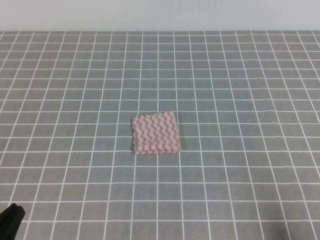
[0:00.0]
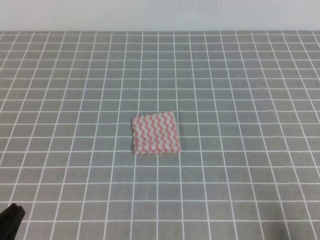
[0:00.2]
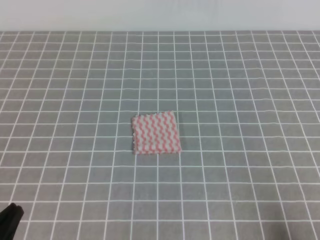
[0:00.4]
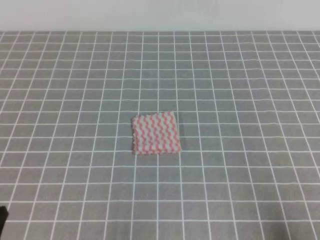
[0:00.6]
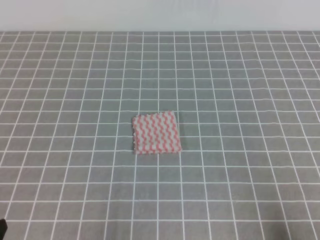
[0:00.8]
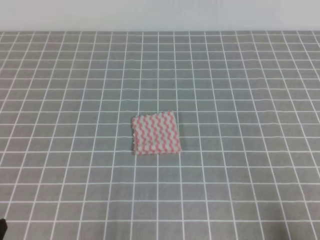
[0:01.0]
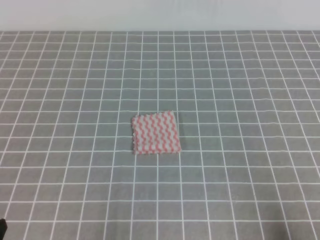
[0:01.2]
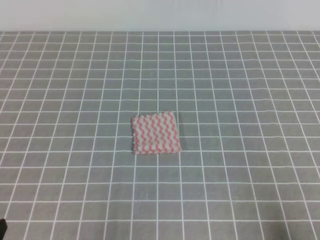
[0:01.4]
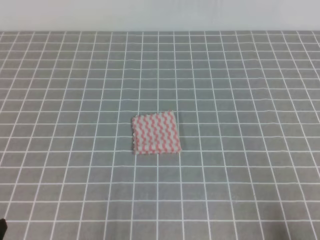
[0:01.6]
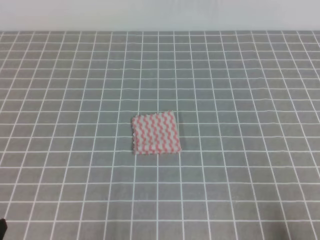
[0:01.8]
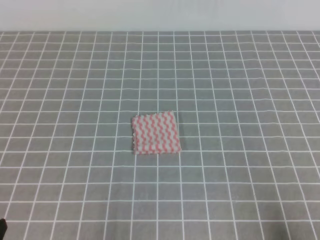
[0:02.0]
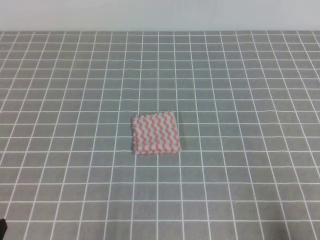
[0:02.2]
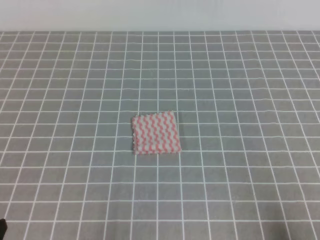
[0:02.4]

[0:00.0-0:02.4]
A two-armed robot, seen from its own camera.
0:01.2 to 0:02.4: Both grippers stay about where they are.

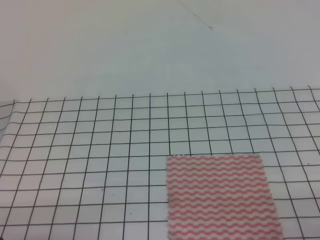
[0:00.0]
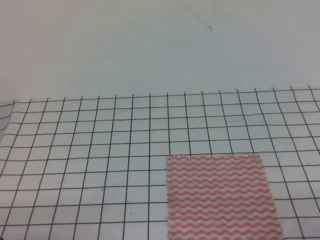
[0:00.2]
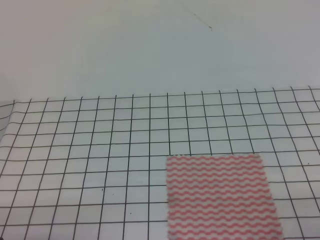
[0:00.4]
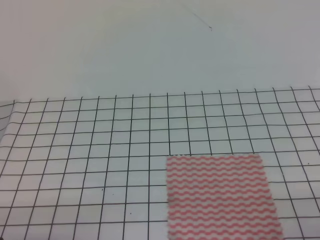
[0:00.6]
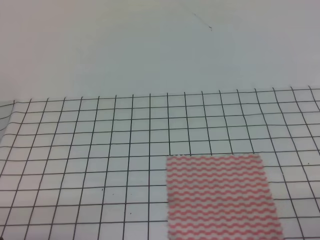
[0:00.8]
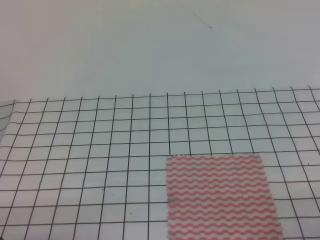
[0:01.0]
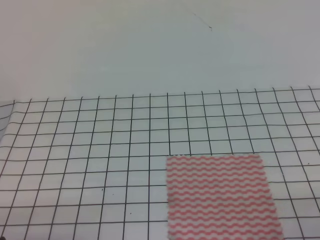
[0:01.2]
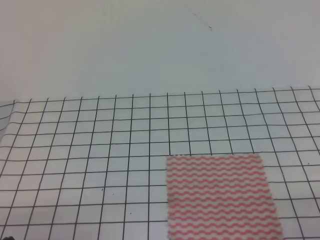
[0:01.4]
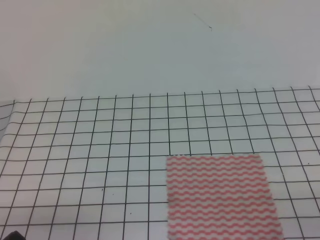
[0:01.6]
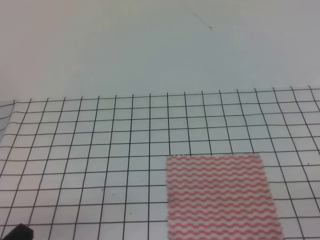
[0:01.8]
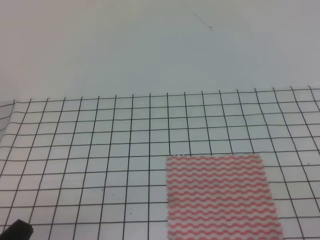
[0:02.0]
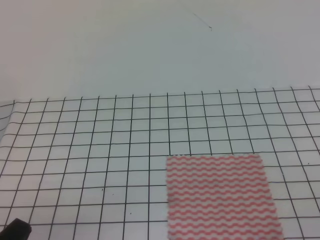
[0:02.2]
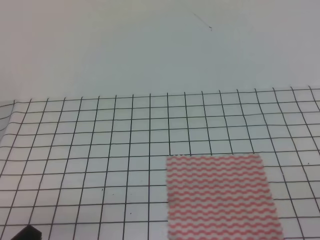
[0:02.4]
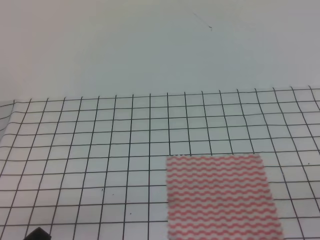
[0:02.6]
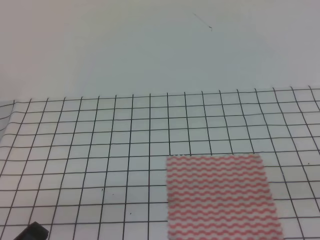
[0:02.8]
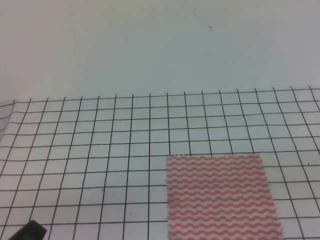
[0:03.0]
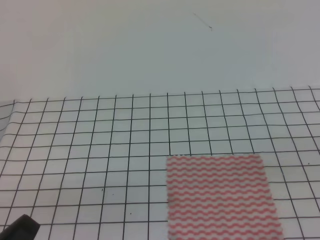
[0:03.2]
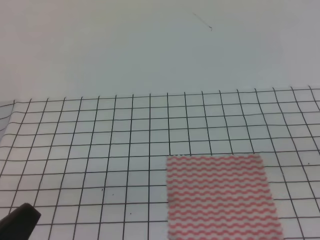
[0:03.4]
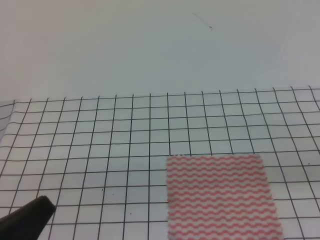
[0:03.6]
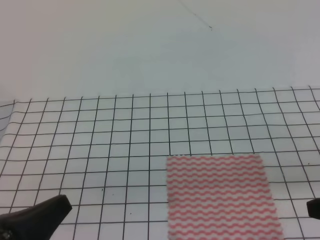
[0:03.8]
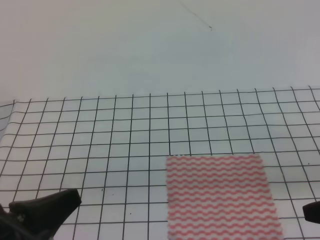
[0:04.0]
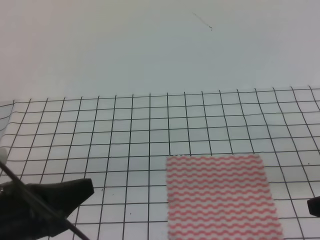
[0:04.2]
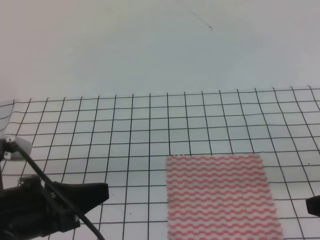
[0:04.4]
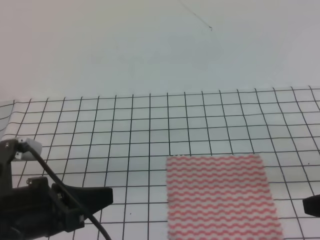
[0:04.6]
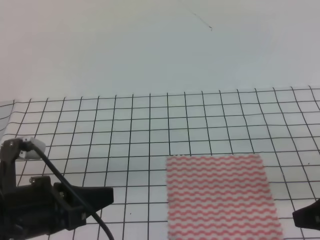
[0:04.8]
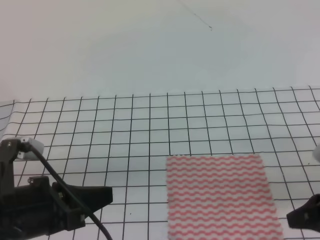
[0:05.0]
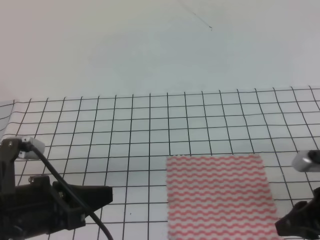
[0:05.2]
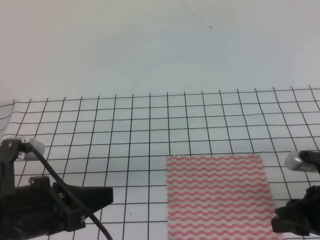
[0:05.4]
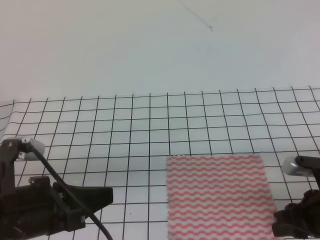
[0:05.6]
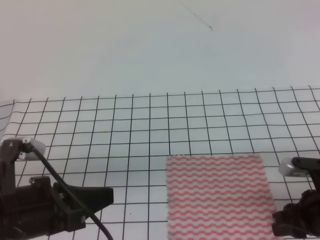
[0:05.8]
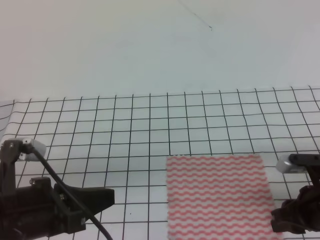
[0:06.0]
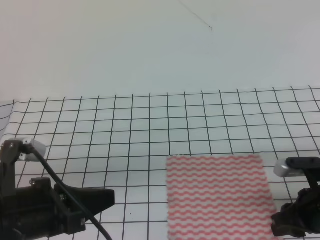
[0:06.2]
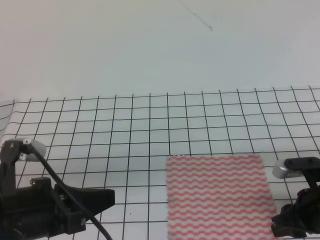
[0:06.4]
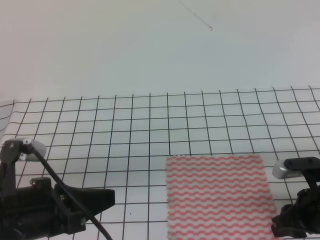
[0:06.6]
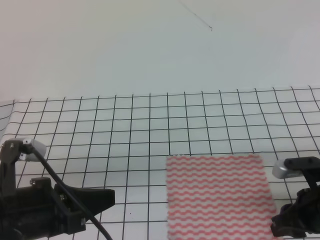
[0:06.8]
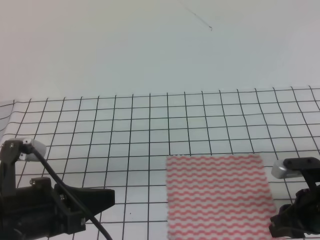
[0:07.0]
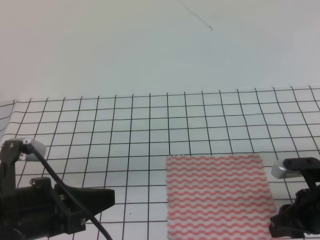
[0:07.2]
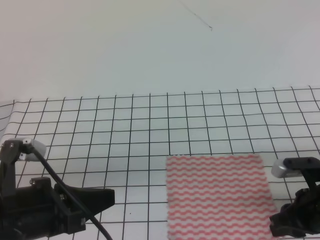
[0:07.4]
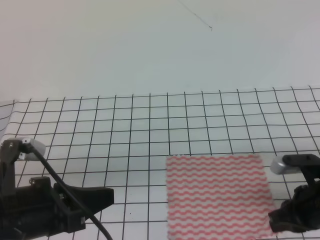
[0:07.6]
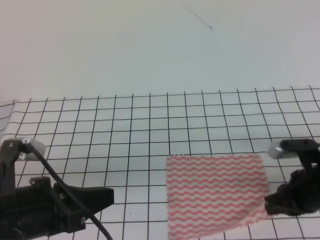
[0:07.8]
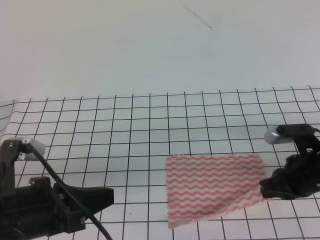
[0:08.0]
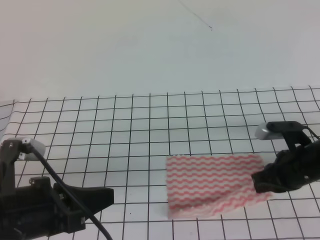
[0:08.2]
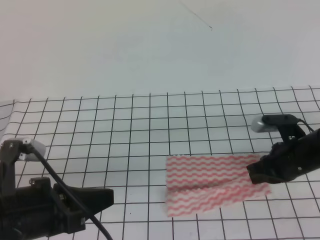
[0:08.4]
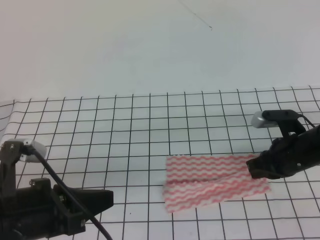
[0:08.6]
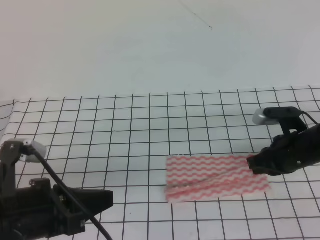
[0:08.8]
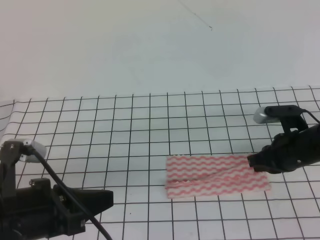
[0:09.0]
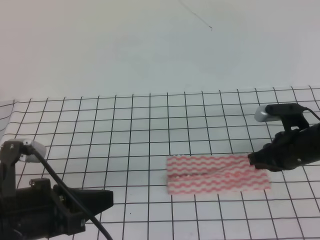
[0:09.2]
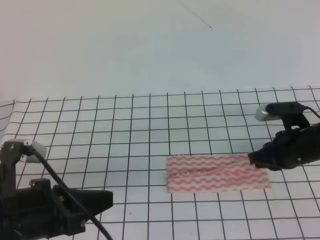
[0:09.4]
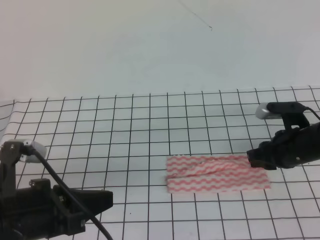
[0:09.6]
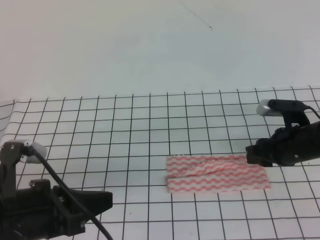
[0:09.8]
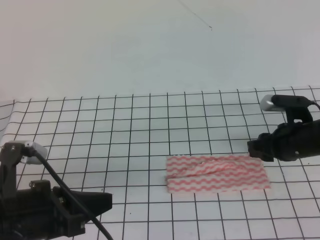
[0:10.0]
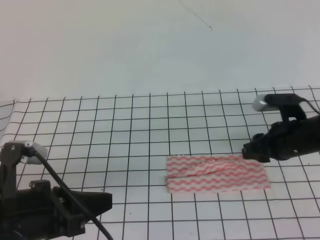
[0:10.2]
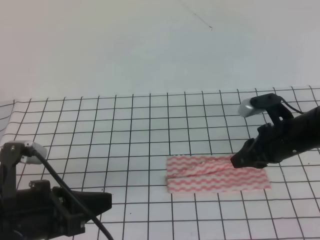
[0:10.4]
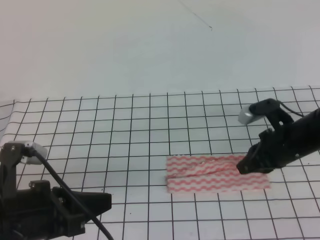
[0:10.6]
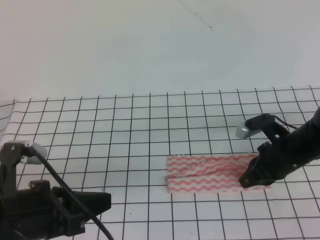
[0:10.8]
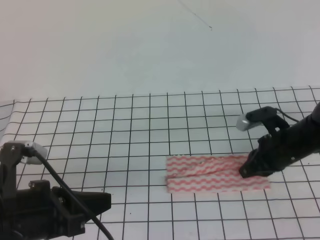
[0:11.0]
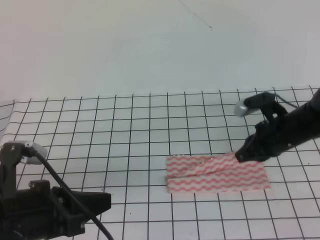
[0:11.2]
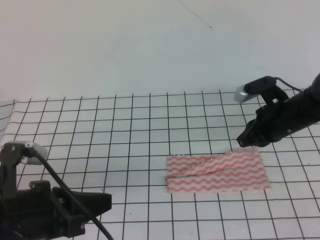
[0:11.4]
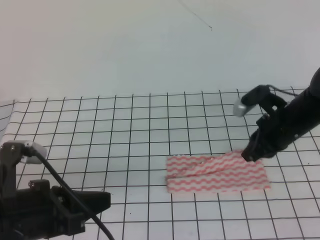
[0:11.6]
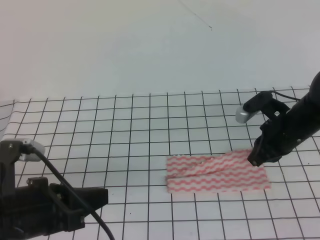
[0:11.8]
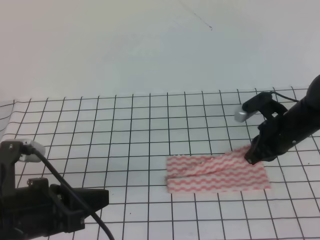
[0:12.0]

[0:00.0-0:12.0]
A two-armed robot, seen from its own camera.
Step, 0:00.0 to 0:09.4: Fold the towel upwards with the right gripper.
0:03.0 to 0:04.4: The left gripper goes roughly 10 cm forward and upward.
0:04.4 to 0:06.0: The right gripper shifts about 10 cm downward and forward, and opens.
0:06.0 to 0:07.6: The right gripper closes.
0:07.6 to 0:09.0: The right gripper shifts roughly 10 cm forward.
0:09.0 to 0:10.4: The right gripper opens.
0:10.4 to 0:12.0: The right gripper closes up.

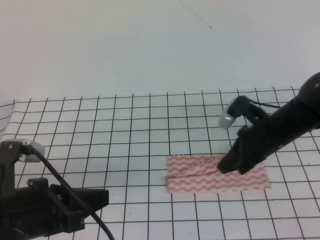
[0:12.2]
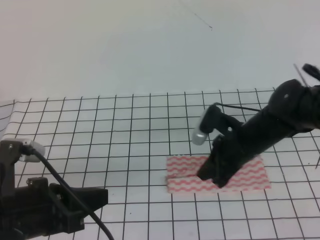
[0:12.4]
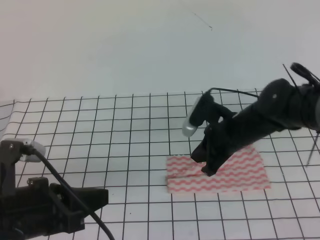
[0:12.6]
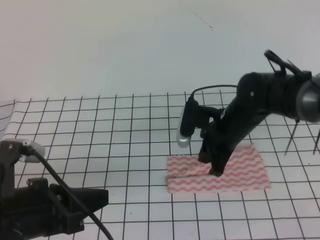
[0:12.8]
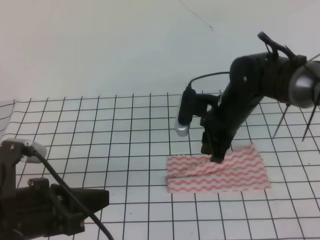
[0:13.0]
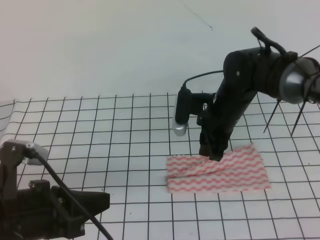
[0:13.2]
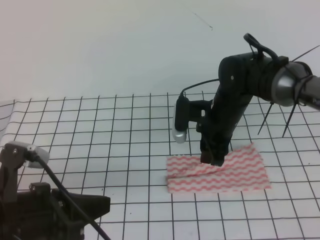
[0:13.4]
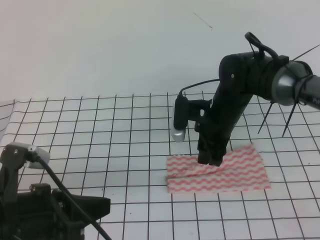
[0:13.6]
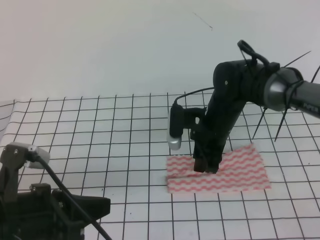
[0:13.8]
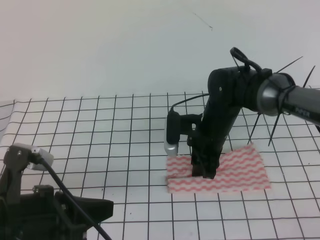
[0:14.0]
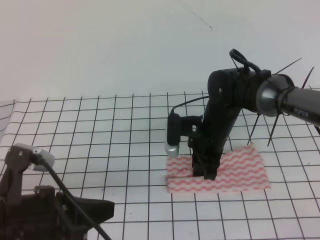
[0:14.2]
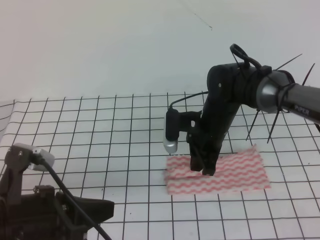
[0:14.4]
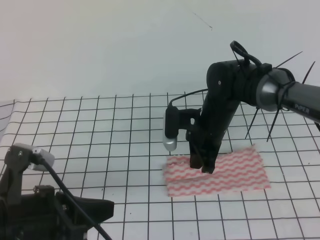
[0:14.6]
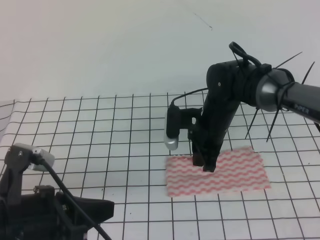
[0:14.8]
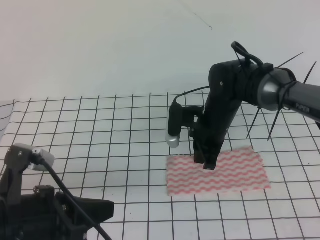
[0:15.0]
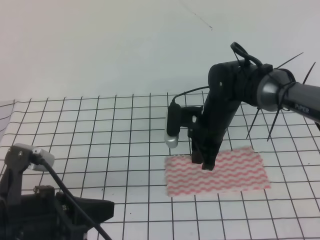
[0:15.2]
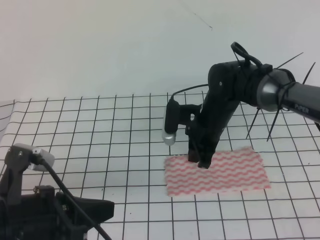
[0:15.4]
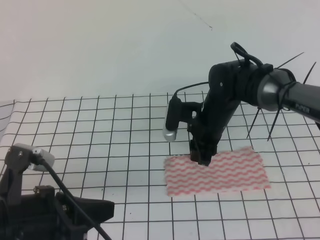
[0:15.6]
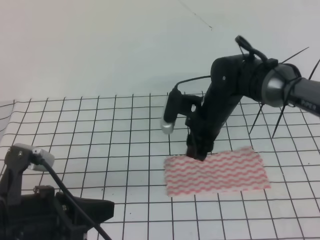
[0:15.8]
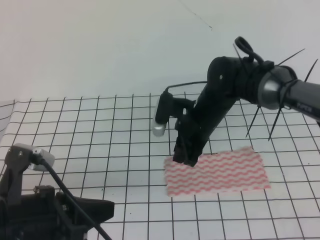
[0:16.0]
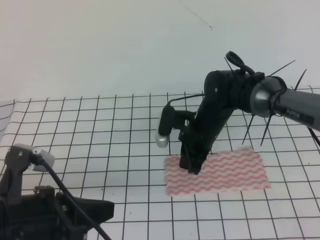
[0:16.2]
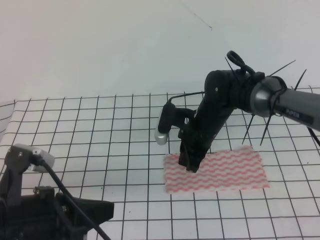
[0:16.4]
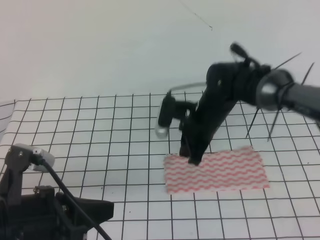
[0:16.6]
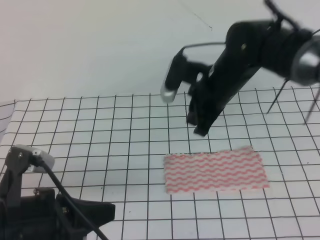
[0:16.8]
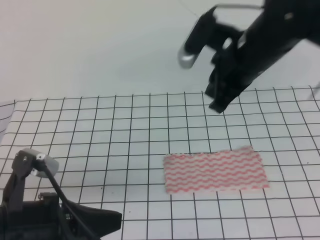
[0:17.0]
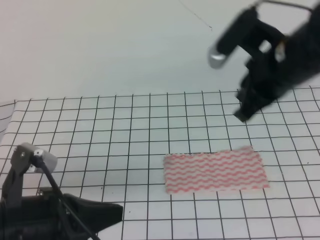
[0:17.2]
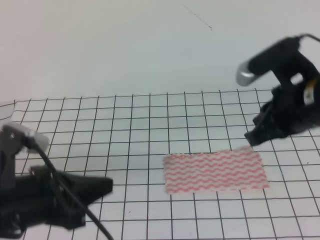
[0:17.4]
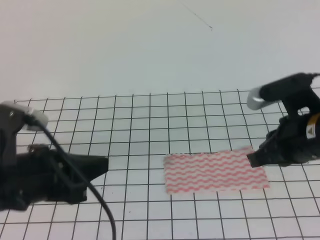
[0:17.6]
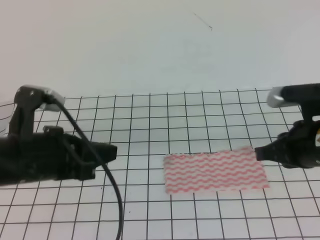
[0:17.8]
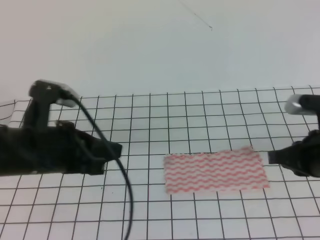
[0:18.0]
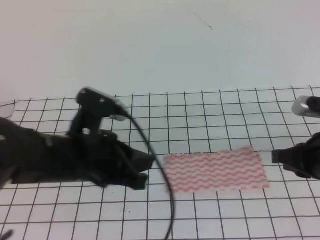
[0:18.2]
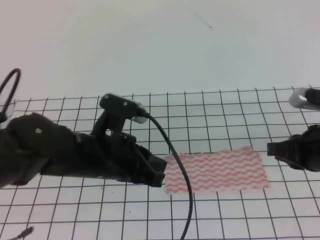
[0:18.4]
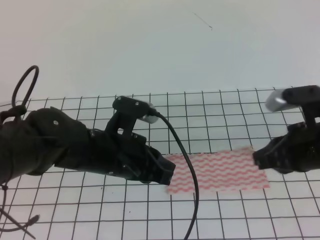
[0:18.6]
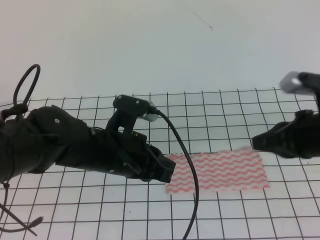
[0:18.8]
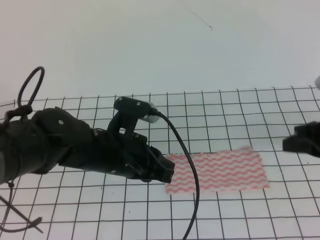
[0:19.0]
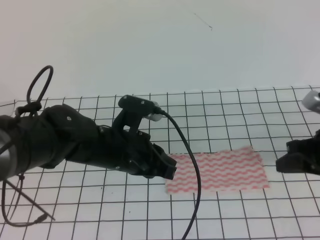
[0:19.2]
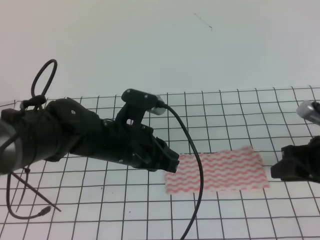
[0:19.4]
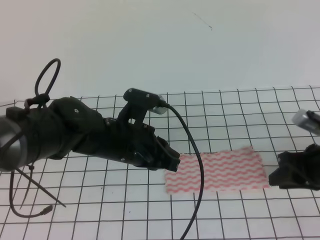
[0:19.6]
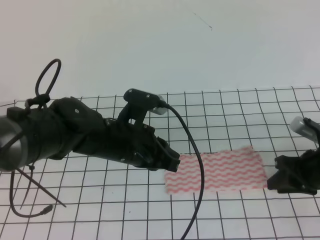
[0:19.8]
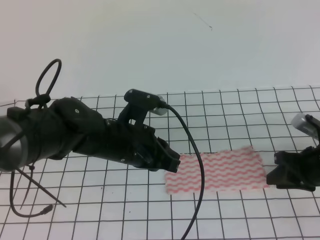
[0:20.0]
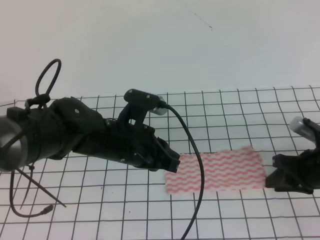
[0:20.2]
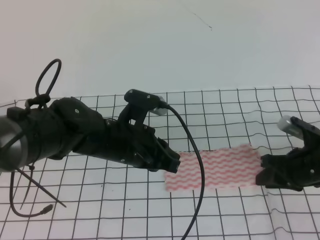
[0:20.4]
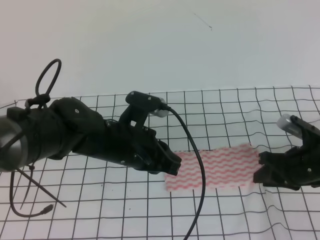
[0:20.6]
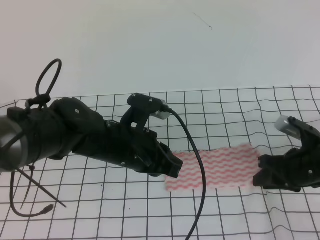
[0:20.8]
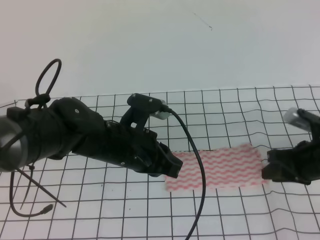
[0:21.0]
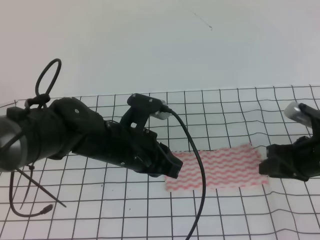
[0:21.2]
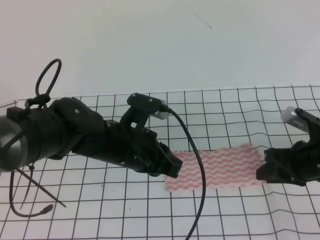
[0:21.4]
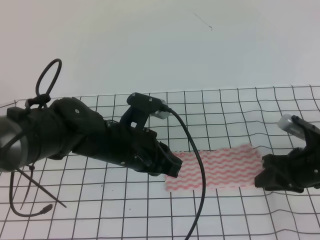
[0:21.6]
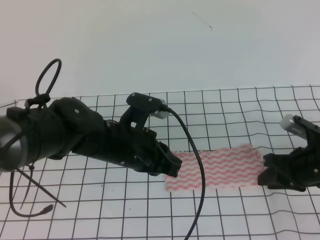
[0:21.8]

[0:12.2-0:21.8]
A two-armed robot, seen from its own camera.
Step, 0:12.2 to 0:15.4: Fold the towel from right to left with the right gripper.
0:12.2 to 0:13.8: The right gripper moves to the left, approximately 10 cm, and opens its fingers.
0:13.8 to 0:15.4: The right gripper closes its fingers.
0:15.4 to 0:17.0: The right gripper moves upward, approximately 15 cm, and closes up.
0:17.0 to 0:18.6: The left gripper goes approximately 15 cm forward and to the right. Meanwhile the right gripper moves to the right, backward and downward, about 15 cm.
0:18.6 to 0:20.2: The right gripper is displaced downward by approximately 10 cm, and opens up.
0:20.2 to 0:21.8: The grippers move only a little.
